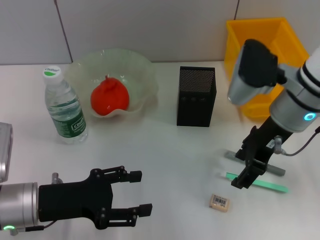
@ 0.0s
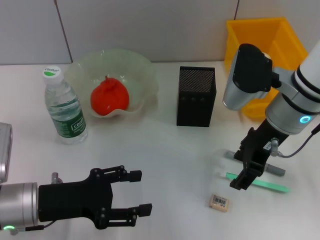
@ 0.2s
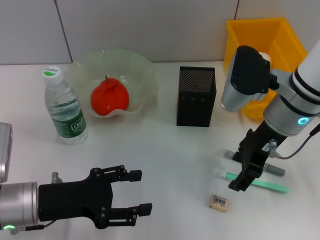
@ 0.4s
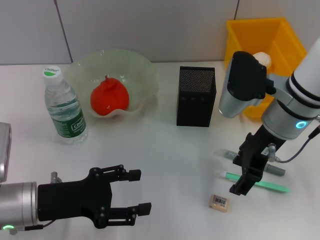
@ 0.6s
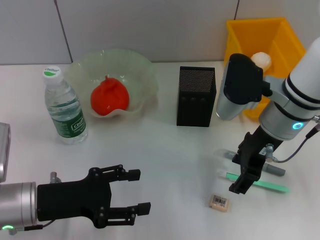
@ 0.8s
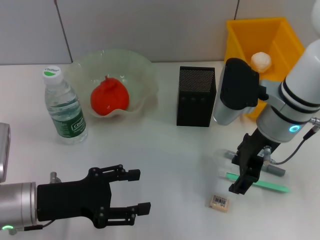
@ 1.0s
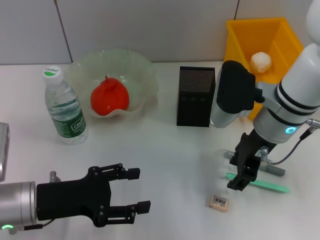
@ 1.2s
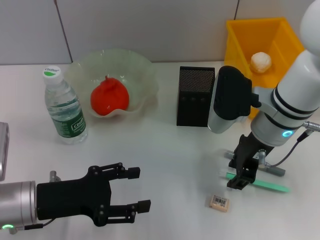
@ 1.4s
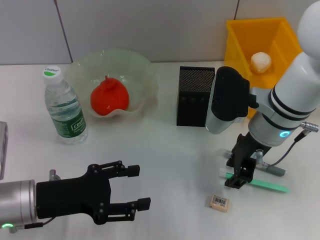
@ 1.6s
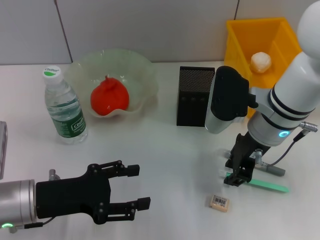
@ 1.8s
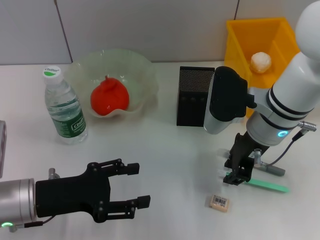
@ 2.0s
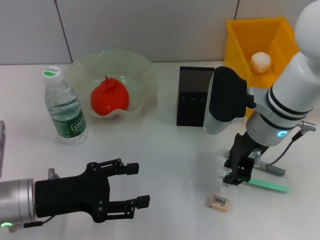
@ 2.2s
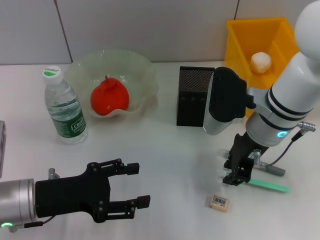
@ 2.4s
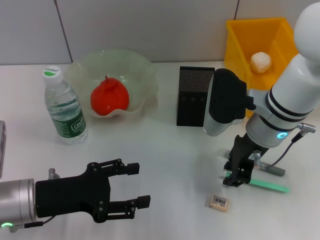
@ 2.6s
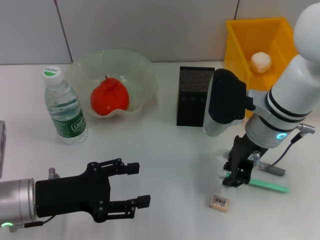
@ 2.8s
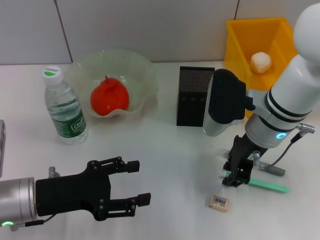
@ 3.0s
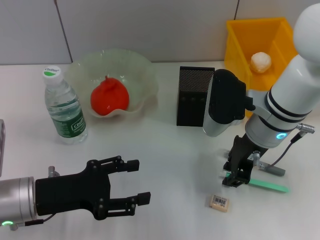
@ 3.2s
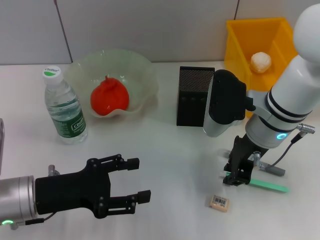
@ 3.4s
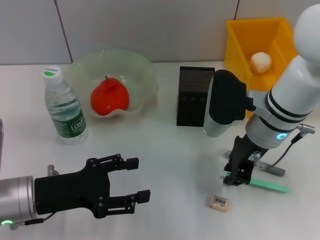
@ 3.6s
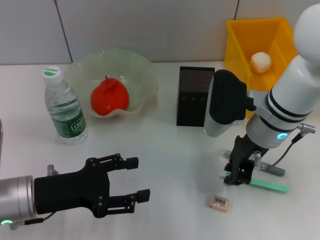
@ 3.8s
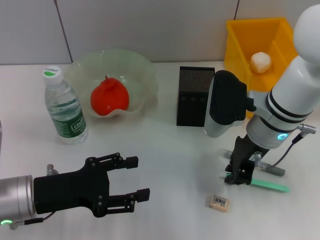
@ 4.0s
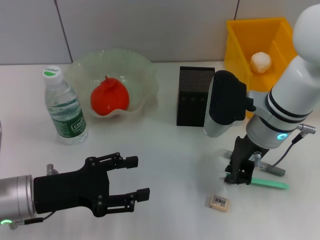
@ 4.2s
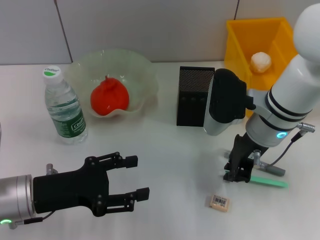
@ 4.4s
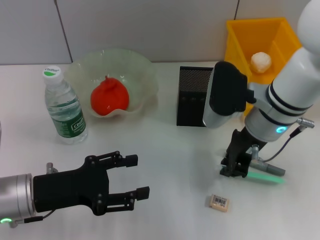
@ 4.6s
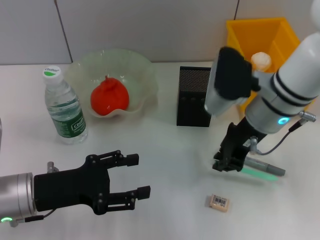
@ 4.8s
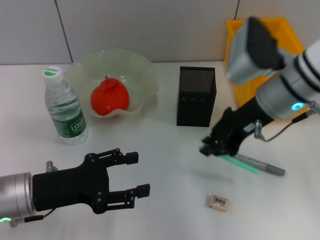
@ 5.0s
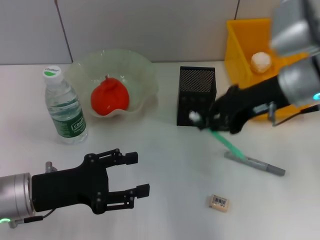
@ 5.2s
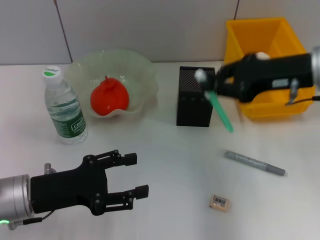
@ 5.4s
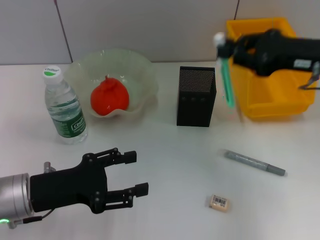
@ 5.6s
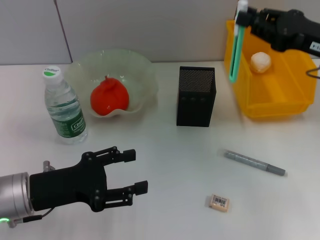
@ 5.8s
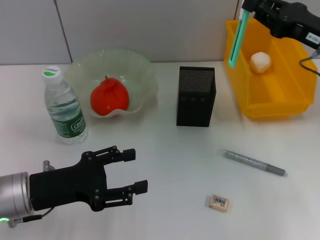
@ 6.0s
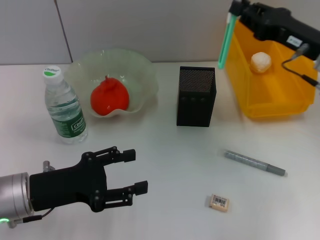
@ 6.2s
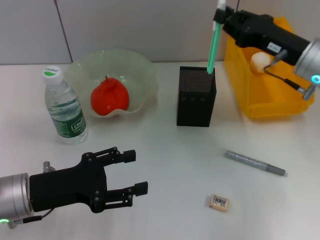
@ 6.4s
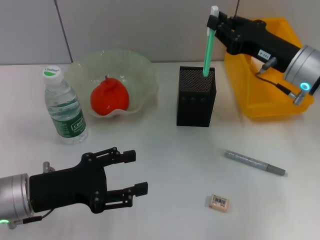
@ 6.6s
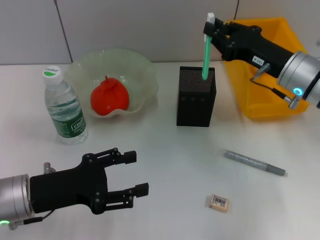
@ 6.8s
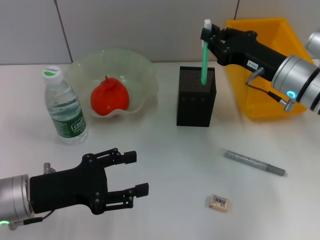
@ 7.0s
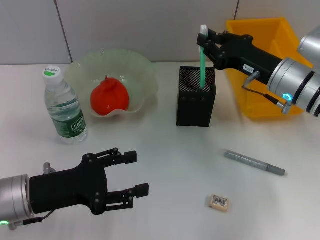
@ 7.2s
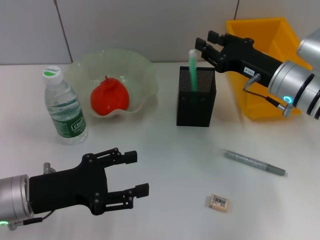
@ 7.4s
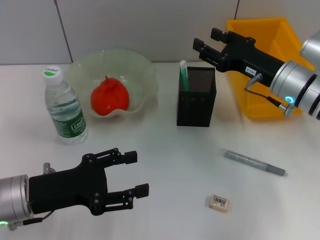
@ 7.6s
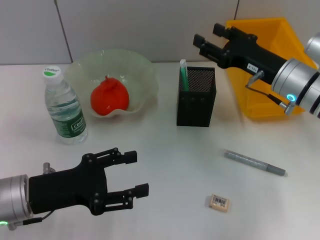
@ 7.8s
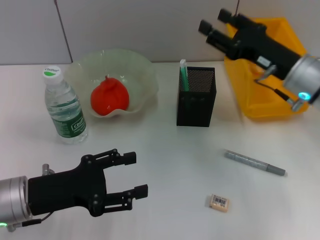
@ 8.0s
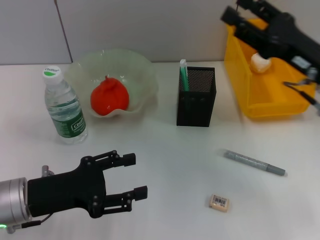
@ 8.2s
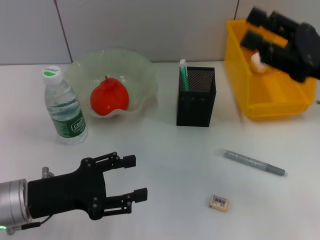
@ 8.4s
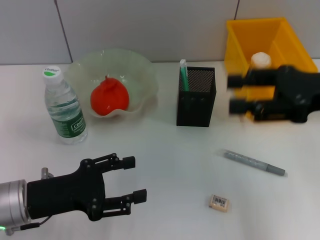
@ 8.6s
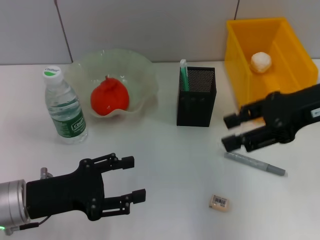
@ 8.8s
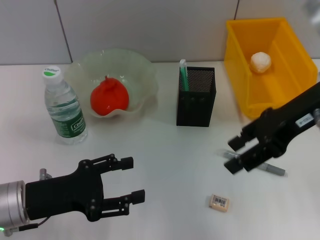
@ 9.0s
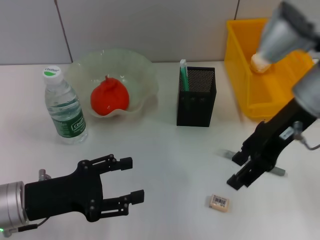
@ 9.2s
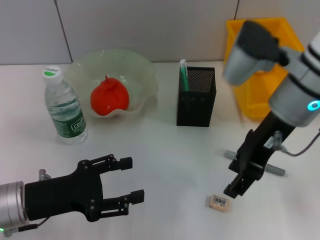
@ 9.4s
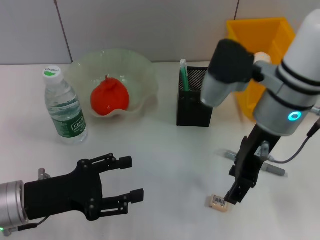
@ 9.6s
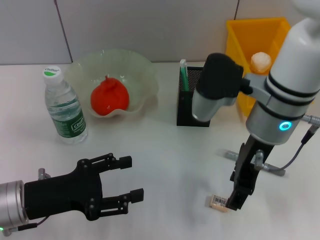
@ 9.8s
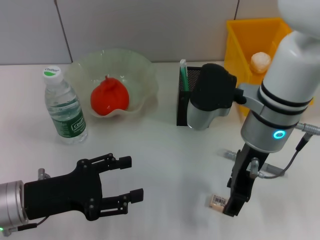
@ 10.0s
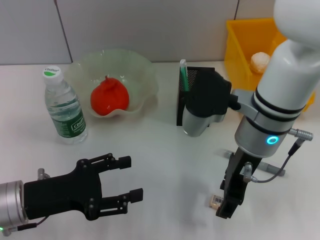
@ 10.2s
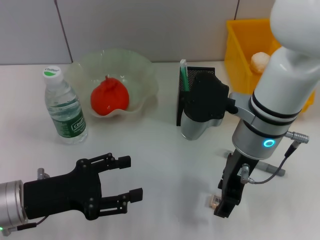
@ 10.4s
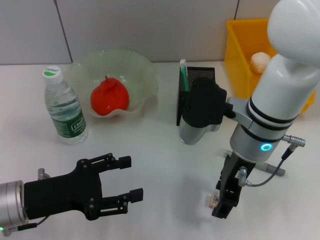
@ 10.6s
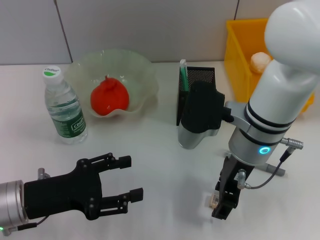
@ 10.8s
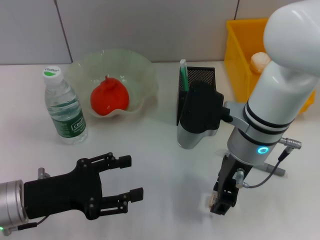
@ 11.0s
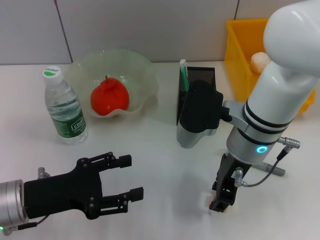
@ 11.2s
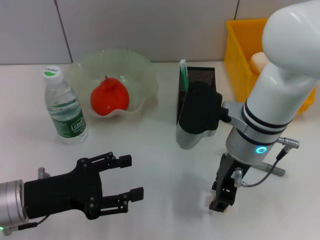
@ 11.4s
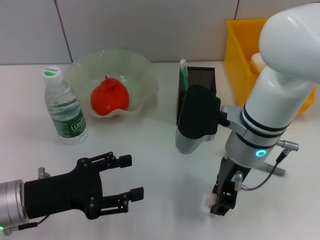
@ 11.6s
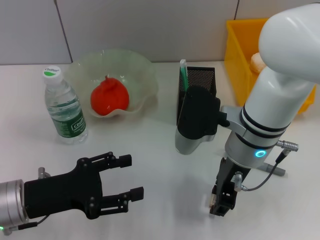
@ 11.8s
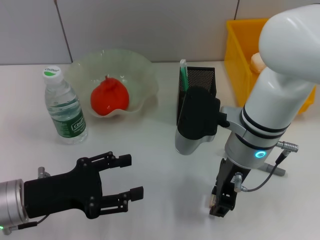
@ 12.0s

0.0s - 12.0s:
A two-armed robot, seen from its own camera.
Step, 0.0s - 4.2s: Grab the blue utility knife with the right hand.
Step, 4.4s - 7.6s: Place the blue utility knife into the pen holder with the right hand.
0.0s - 1.6s: The right gripper closes up.
1.6s - 4.4s: Neither gripper changes place.
4.4s - 6.0s: The right gripper is displaced to the right by approximately 15 cm.
6.0s - 7.6s: The right gripper travels downward and to the left by roughly 10 cm.
7.6s - 9.0s: The right gripper moves upward, roughly 10 cm, and opens its fingers.
9.0s - 10.4s: The right gripper goes roughly 15 cm to the left and downward.
10.4s - 12.0s: There are only small adjustments of the grippers.

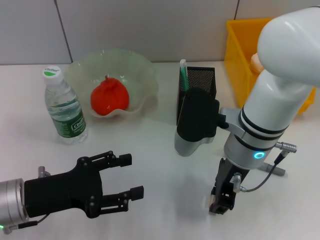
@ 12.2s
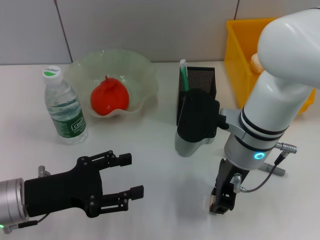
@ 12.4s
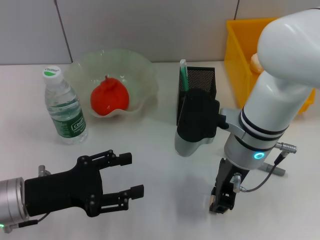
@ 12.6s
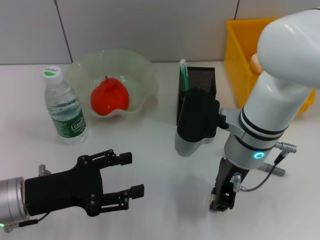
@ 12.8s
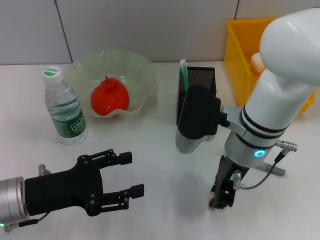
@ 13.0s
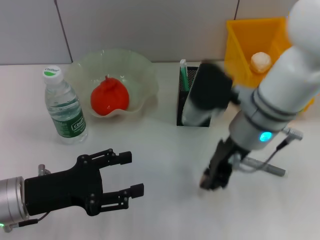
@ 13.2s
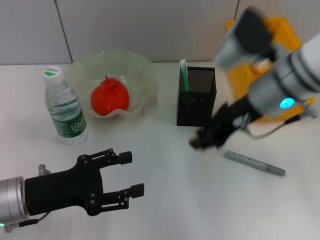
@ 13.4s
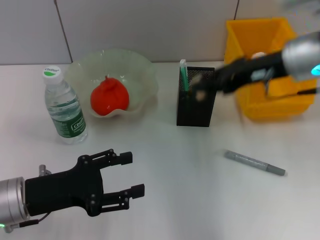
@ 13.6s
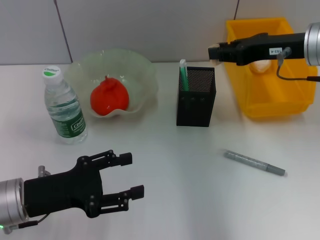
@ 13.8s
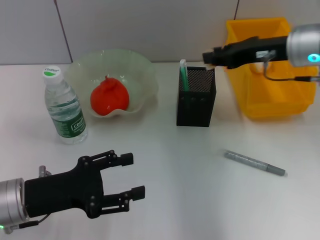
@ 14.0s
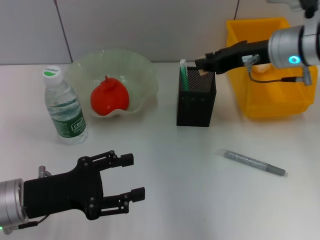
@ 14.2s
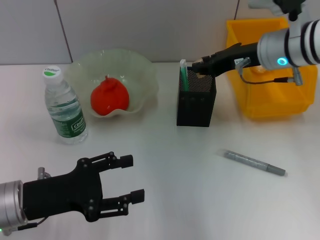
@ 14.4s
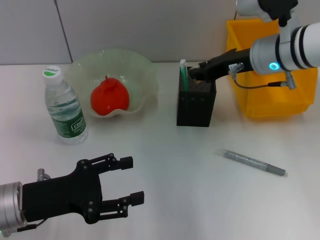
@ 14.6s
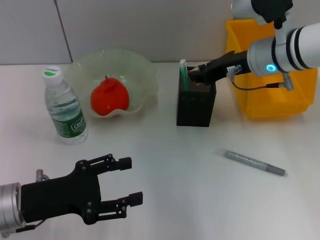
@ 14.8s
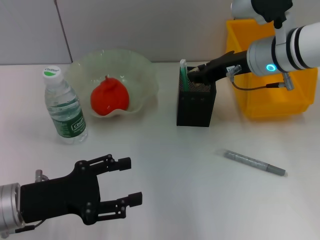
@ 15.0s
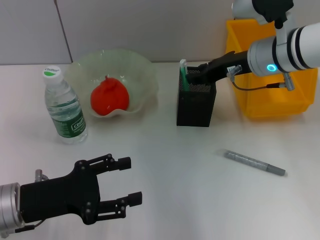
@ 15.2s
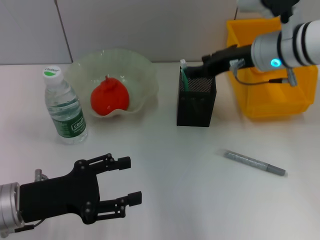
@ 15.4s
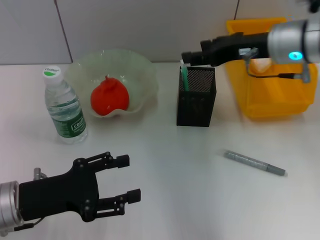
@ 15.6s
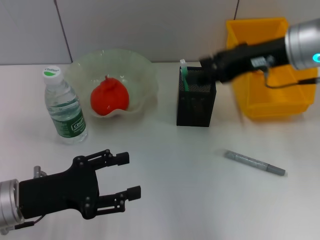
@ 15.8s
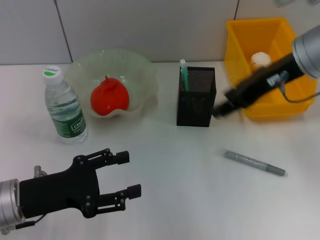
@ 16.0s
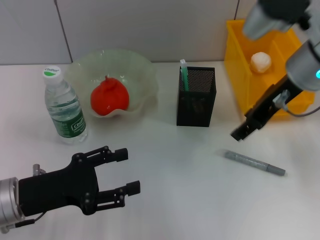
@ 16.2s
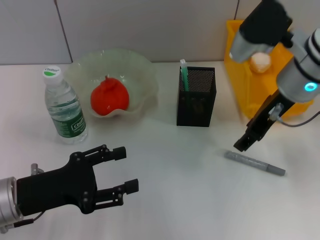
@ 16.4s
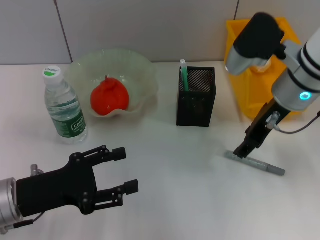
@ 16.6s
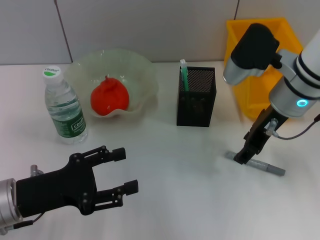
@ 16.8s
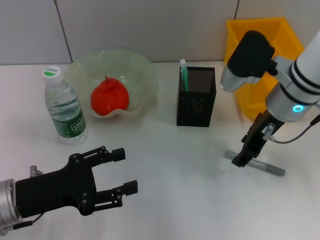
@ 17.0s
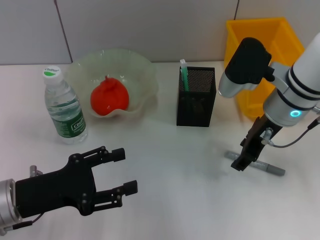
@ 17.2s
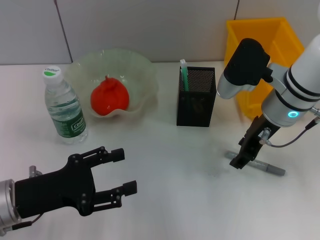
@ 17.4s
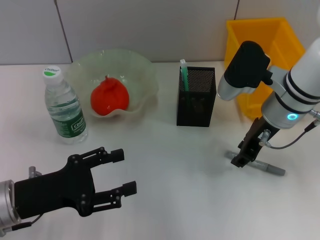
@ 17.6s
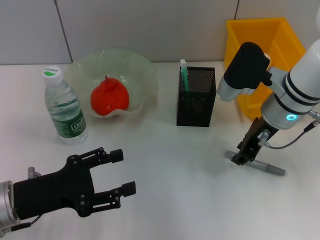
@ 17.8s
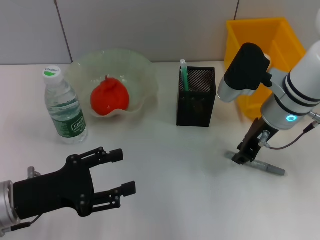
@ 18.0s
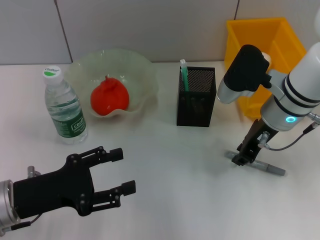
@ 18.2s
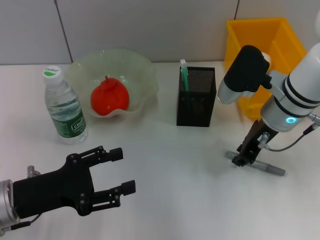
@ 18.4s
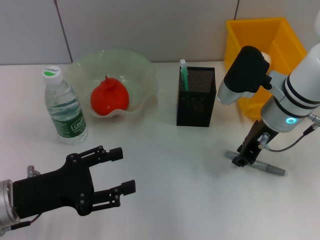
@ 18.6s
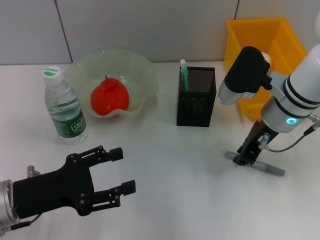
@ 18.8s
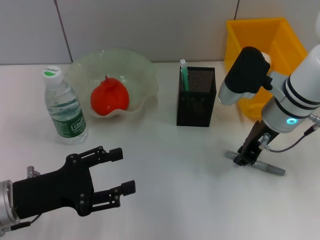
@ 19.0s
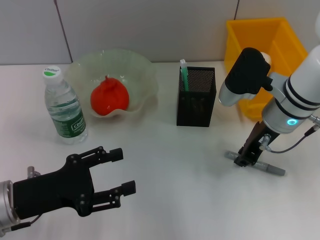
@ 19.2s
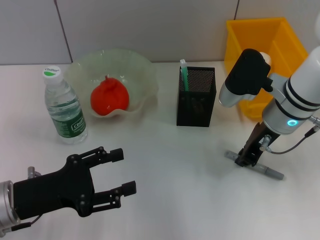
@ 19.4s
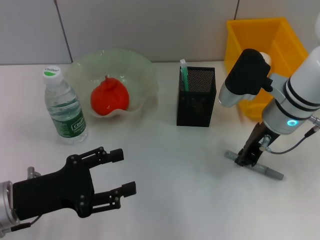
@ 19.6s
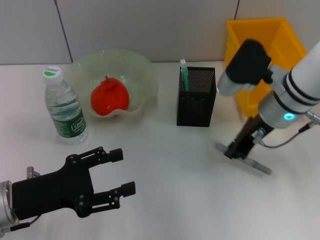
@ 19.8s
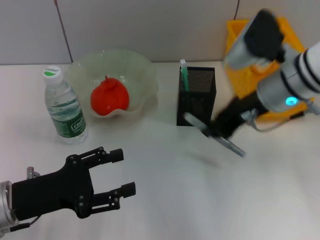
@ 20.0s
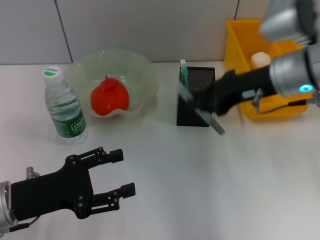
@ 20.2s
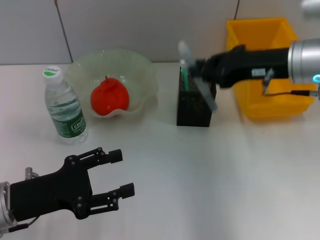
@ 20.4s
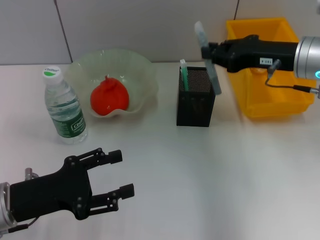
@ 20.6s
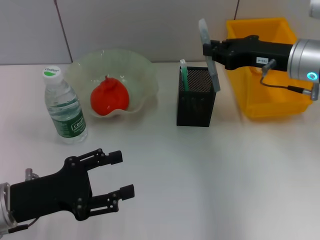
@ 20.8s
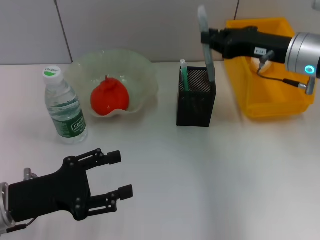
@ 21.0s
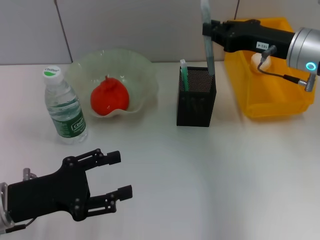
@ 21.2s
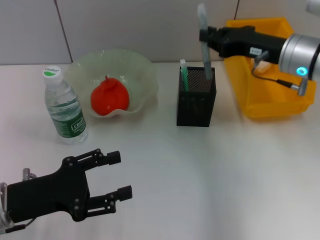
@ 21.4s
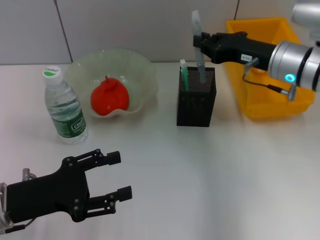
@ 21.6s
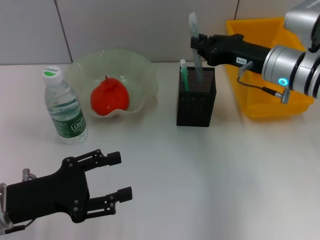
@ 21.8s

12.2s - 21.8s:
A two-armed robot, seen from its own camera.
Step, 12.8s - 15.4s: Put the eraser into the pen holder with the right hand.
Step, 15.6s - 19.2s: Grab the gray glue with the right hand.
12.2s - 13.8s: The right gripper shifts roughly 15 cm to the right, upward and forward.
13.8s - 15.4s: The right gripper shifts some 5 cm to the left.
15.4s - 17.0s: The right gripper travels upward and back again, approximately 5 cm each way.
17.0s - 18.6s: The right gripper closes.
18.6s - 20.2s: The right gripper heads upward, covering roughly 5 cm.
20.2s - 21.8s: The right gripper moves downward, some 5 cm.

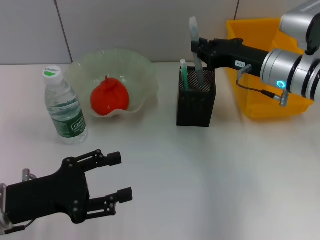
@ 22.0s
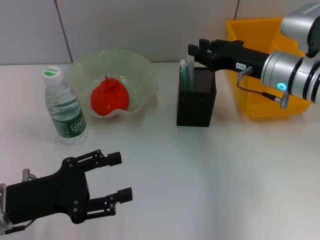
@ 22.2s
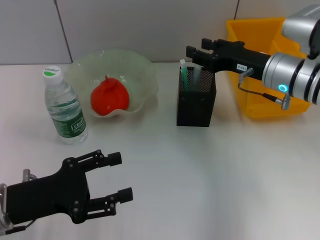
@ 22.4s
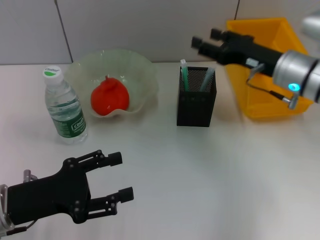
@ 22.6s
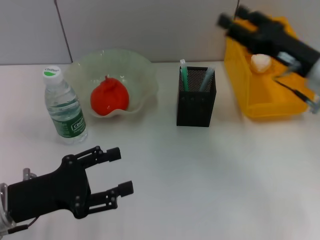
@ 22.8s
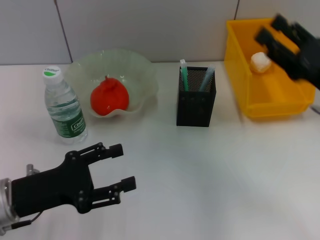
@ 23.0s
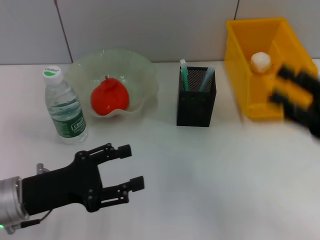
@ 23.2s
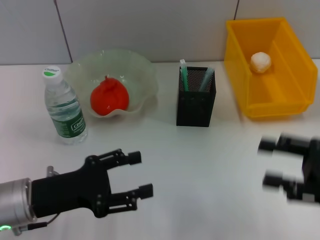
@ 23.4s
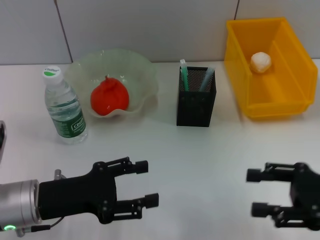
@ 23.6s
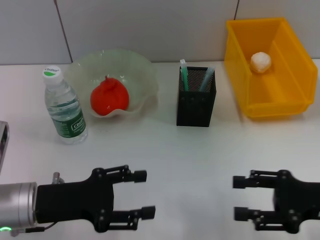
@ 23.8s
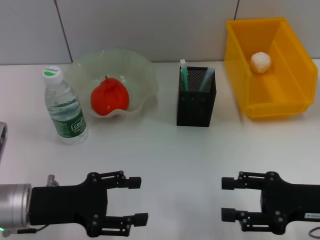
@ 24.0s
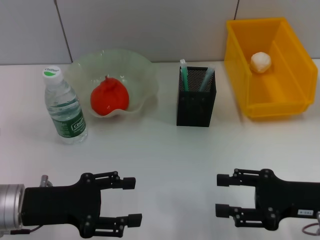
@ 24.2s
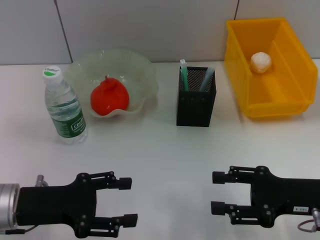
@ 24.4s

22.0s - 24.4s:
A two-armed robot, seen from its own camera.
22.0s - 23.2s: The right gripper shifts approximately 20 cm backward and to the right, and opens up.
23.2s - 24.4s: The right gripper changes place by approximately 5 cm.
